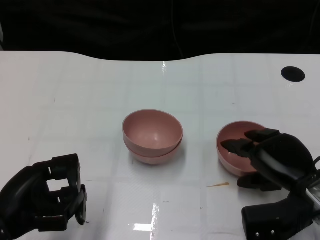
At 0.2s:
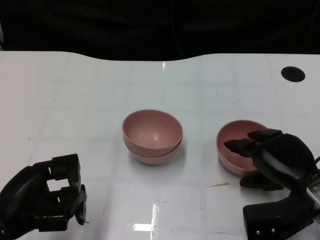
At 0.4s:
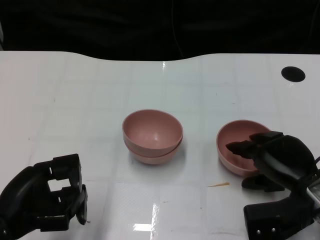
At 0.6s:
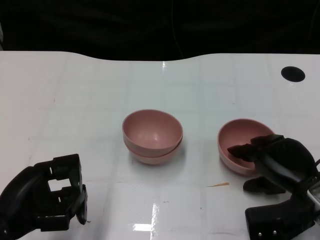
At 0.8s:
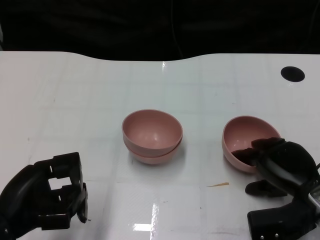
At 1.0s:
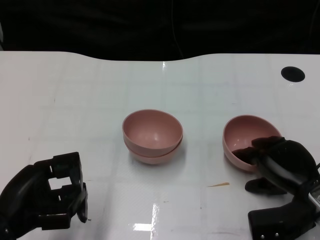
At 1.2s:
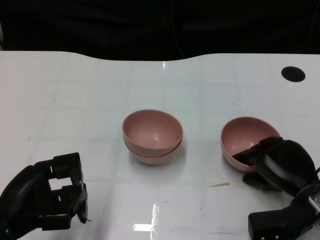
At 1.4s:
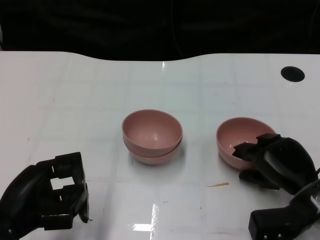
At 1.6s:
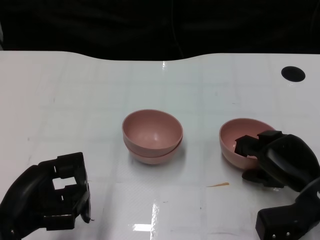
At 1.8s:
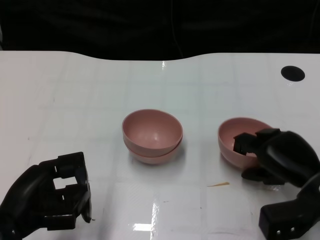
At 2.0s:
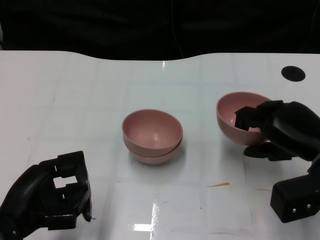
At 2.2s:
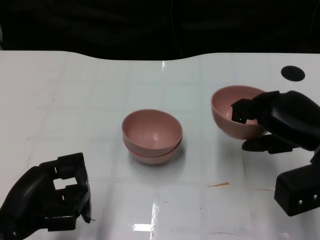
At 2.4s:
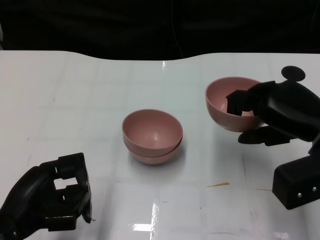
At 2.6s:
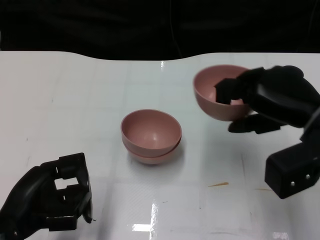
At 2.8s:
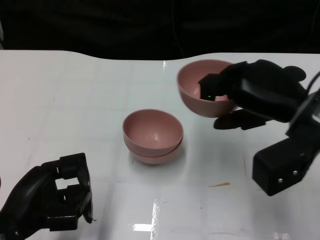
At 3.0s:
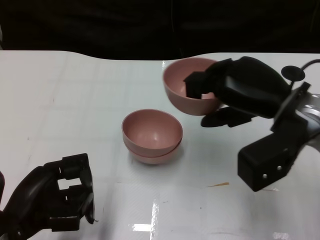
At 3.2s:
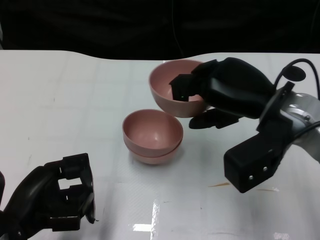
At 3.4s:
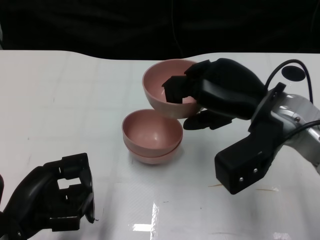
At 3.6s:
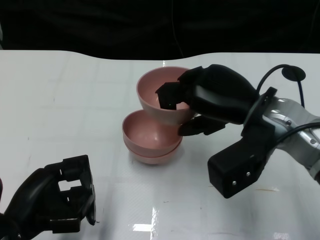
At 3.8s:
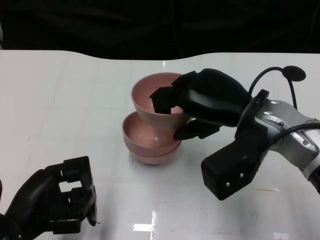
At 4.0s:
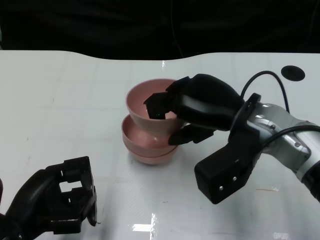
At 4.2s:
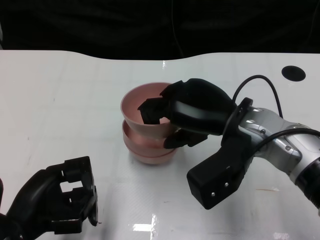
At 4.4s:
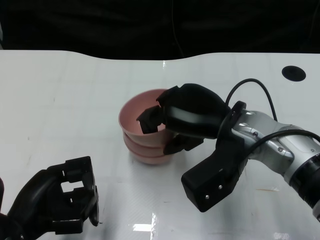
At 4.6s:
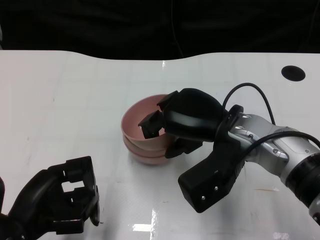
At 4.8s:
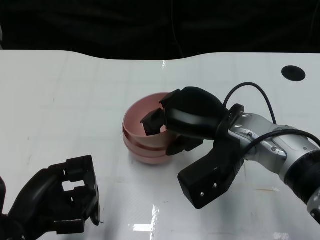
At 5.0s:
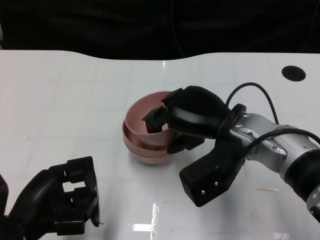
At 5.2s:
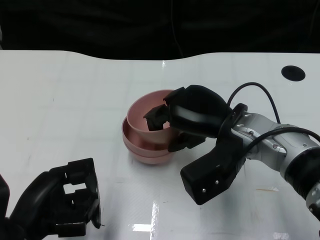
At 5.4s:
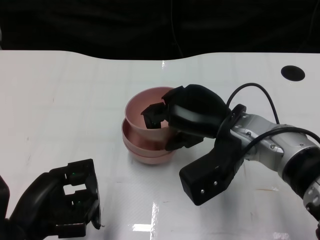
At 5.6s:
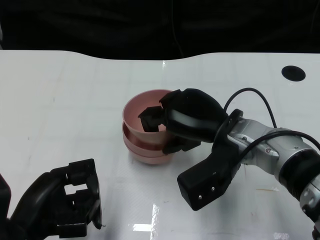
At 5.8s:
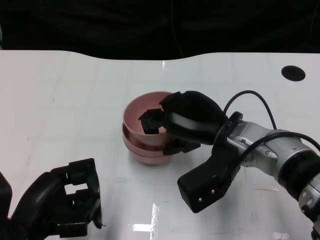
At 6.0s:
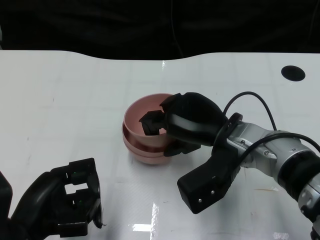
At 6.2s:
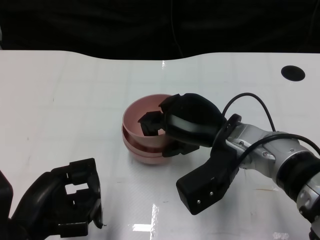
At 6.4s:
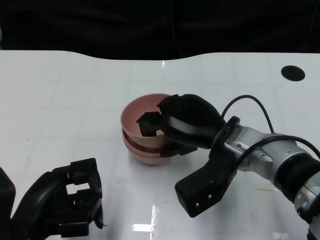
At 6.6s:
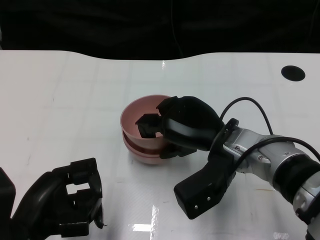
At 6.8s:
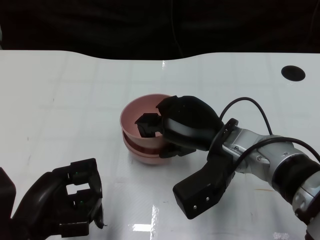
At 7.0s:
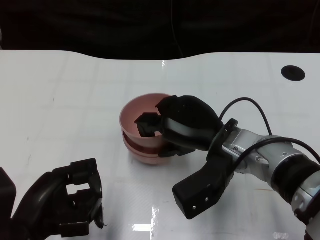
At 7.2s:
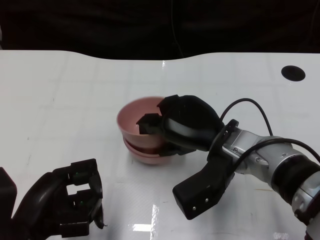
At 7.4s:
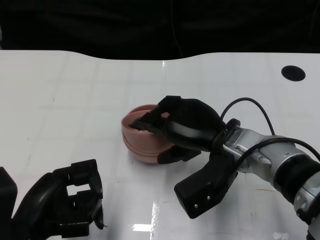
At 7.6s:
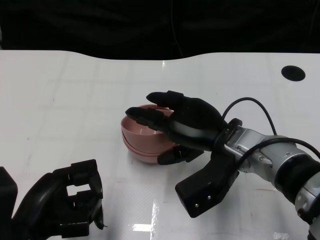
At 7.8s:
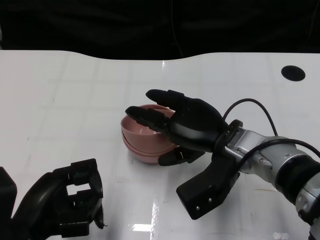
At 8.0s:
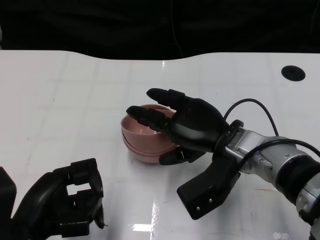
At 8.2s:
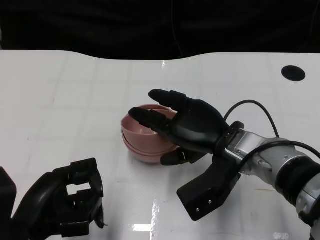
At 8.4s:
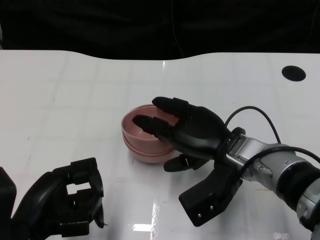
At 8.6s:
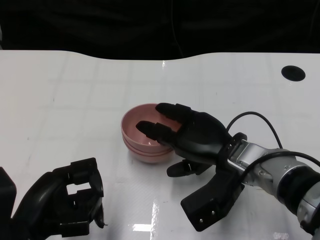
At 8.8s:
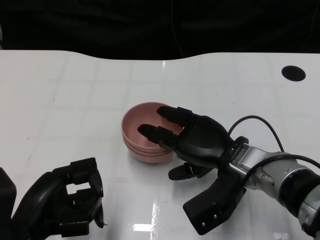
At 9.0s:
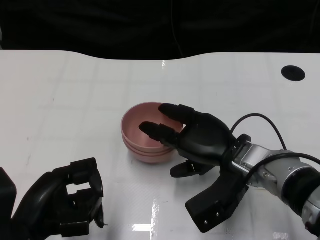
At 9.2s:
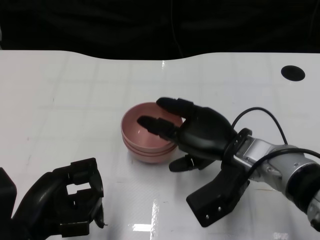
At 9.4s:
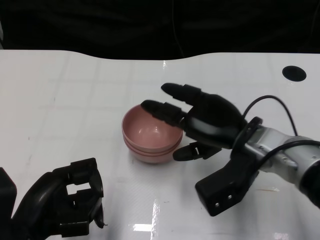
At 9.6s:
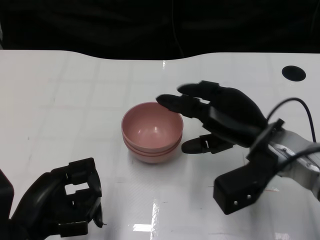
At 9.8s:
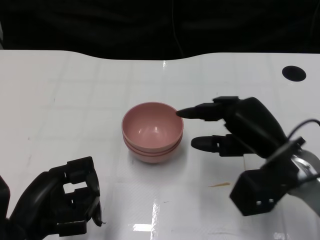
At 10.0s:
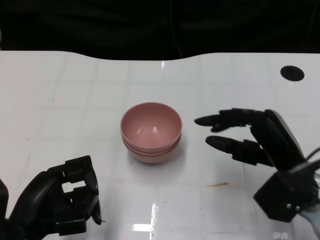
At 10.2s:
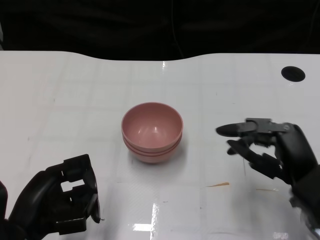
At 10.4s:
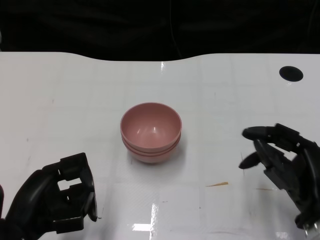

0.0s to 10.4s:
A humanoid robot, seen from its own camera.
Task of the whole recording: Pick up the bowl on one side of the table and place it on top of the middle bowl, then pick up the bowl on the other side of the table and place it on top of the middle bowls.
Step, 2.0s to 9.2s: Place the bowl on the right onto the bowl in the middle with right gripper.
0.0s to 1.4s: The hands stay close to where they were, moving slightly.
1.4s to 3.0s: The right hand shifts roughly 15 cm upward.
3.0s to 4.4s: The right hand travels to the left by roughly 5 cm.
4.4s to 7.4s: The hands make only small movements.
7.4s to 9.0s: There are only small adjustments of the hands.
9.0s to 10.4s: The right hand moves to the right and backward, approximately 15 cm.

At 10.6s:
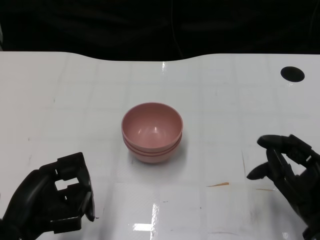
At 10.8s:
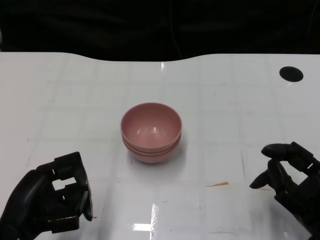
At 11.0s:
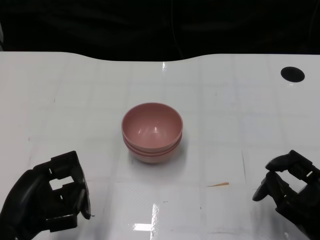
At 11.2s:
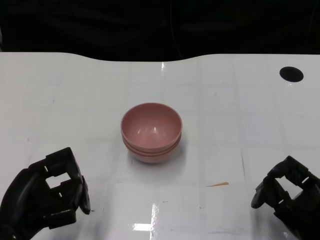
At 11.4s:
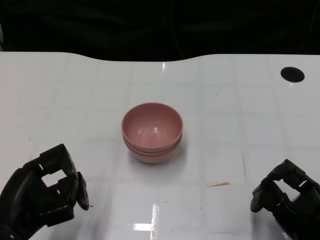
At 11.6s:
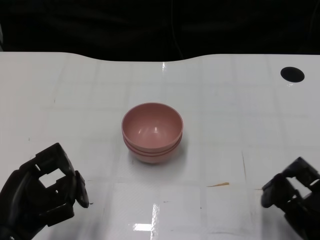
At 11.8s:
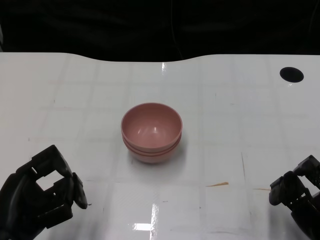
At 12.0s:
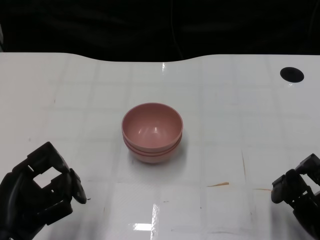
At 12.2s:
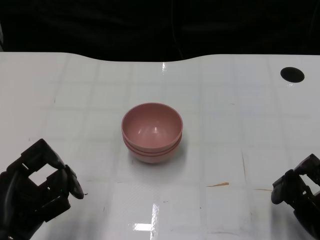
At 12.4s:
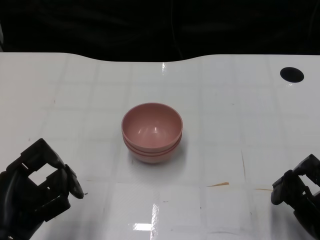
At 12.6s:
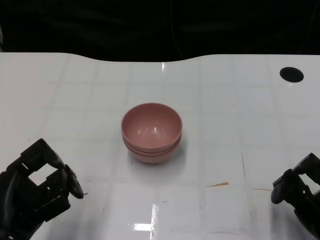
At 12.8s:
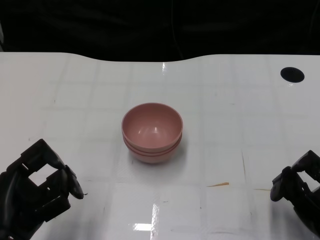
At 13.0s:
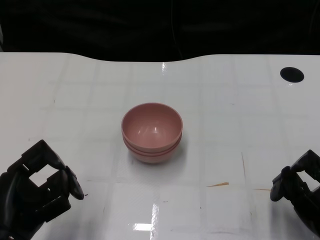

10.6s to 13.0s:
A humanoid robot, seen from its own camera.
Task of the whole recording: Pick up the bowl on one side of the table and place it on top of the middle bowl, then pick up the bowl on the other side of the table and place it on top of the middle bowls.
11.8s to 13.0s: There are only small adjustments of the hands.

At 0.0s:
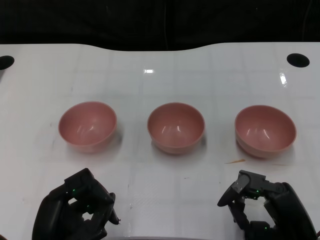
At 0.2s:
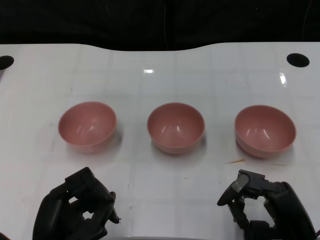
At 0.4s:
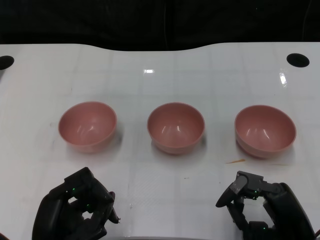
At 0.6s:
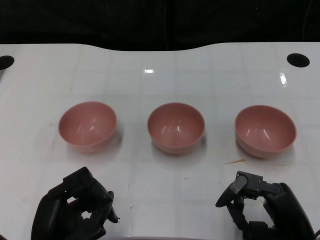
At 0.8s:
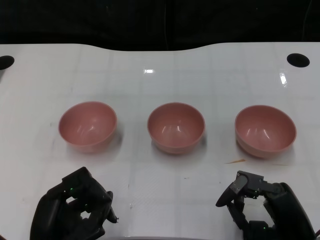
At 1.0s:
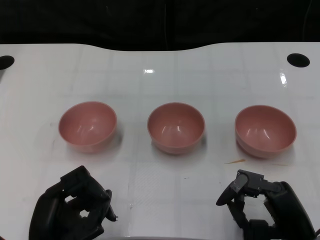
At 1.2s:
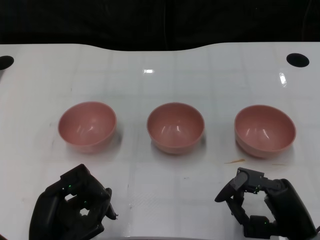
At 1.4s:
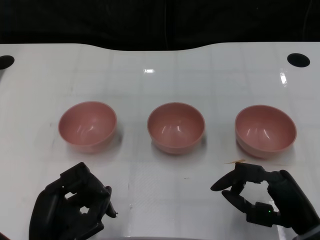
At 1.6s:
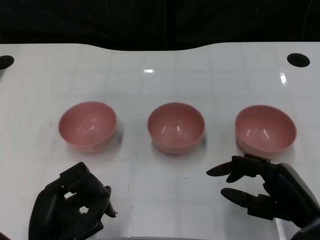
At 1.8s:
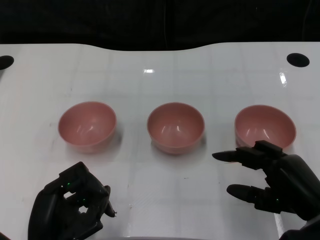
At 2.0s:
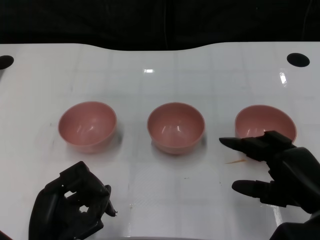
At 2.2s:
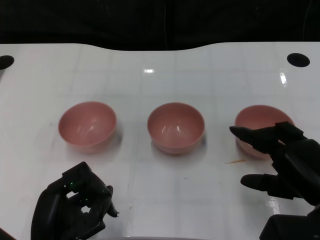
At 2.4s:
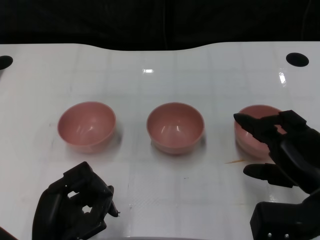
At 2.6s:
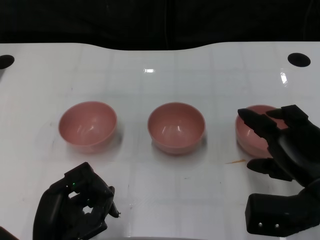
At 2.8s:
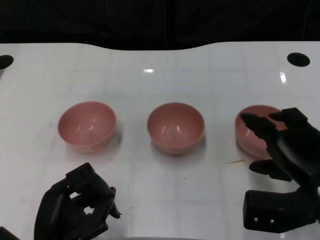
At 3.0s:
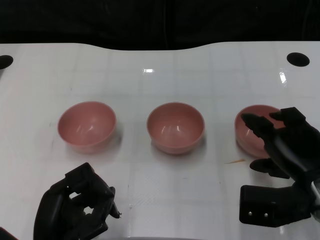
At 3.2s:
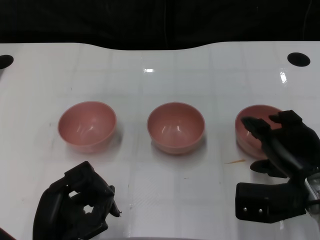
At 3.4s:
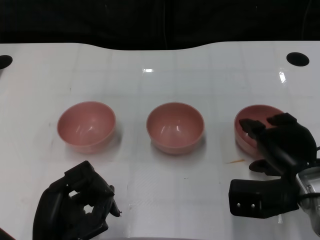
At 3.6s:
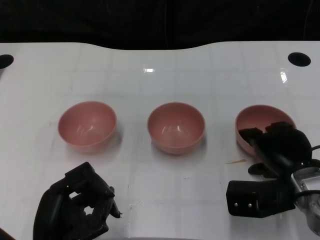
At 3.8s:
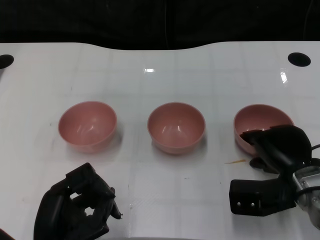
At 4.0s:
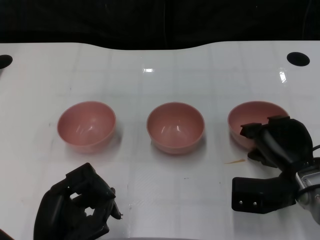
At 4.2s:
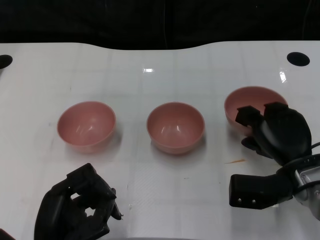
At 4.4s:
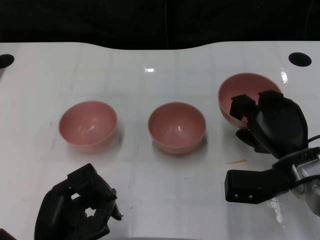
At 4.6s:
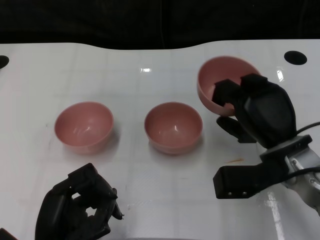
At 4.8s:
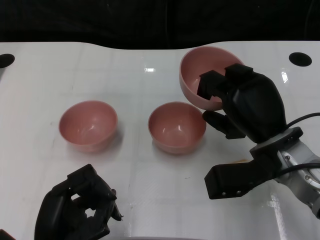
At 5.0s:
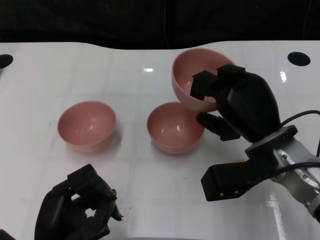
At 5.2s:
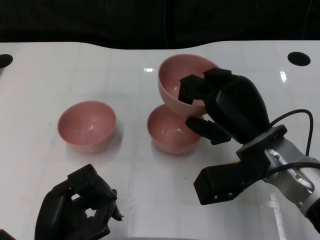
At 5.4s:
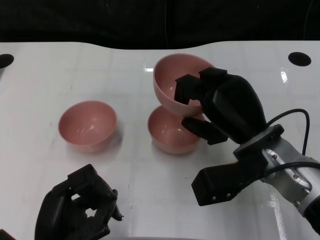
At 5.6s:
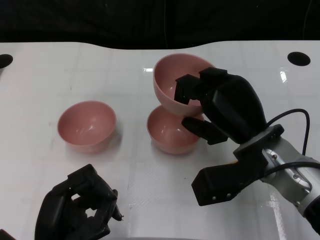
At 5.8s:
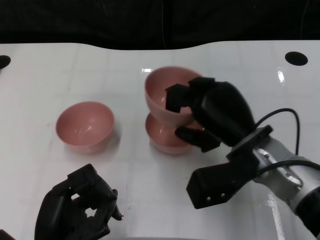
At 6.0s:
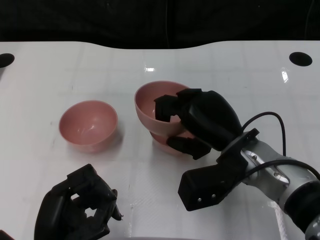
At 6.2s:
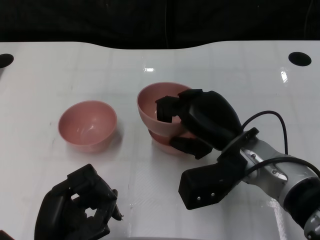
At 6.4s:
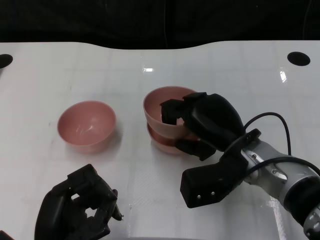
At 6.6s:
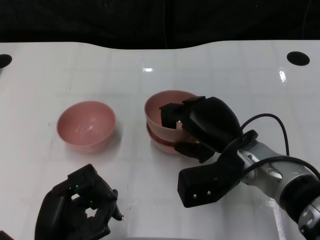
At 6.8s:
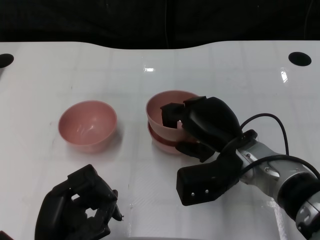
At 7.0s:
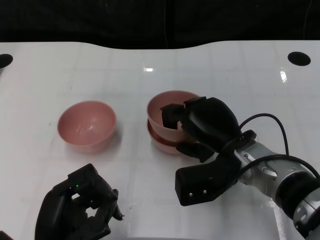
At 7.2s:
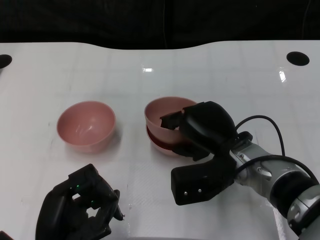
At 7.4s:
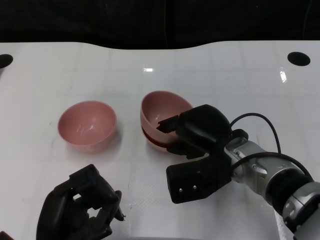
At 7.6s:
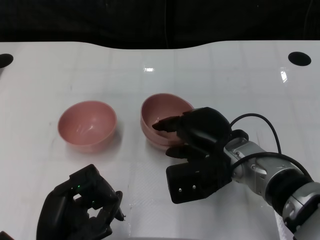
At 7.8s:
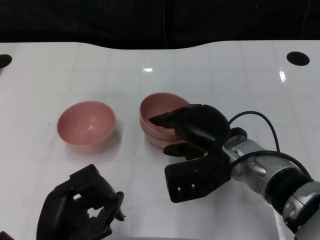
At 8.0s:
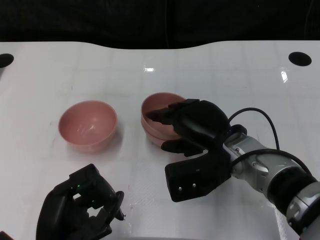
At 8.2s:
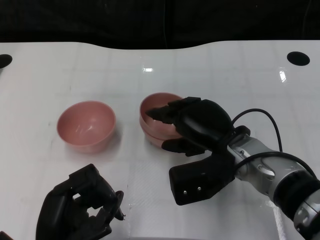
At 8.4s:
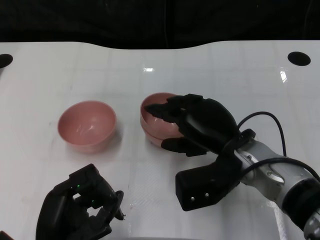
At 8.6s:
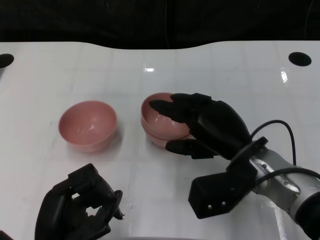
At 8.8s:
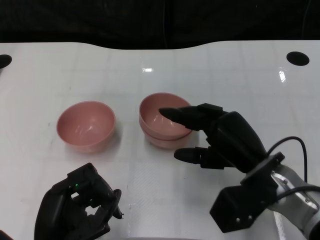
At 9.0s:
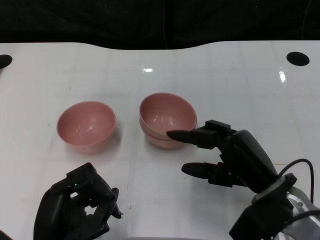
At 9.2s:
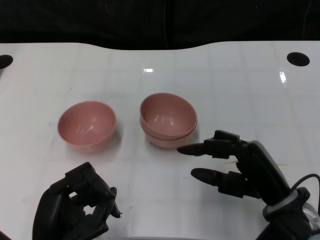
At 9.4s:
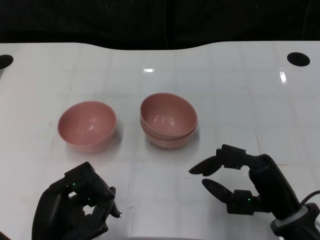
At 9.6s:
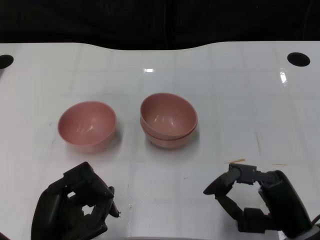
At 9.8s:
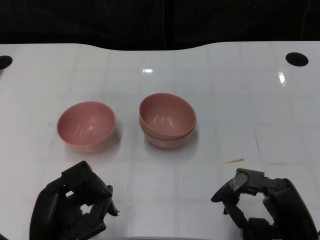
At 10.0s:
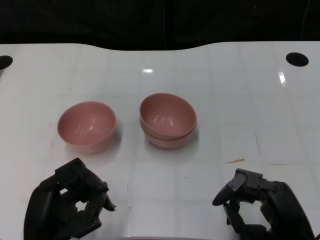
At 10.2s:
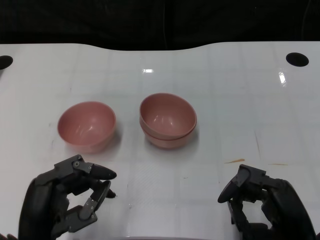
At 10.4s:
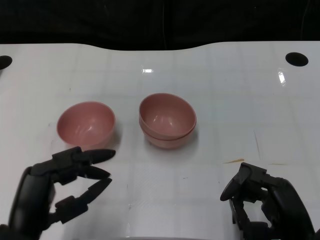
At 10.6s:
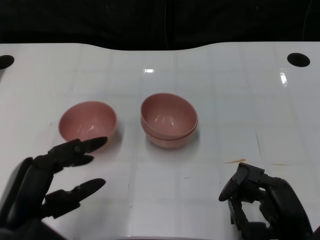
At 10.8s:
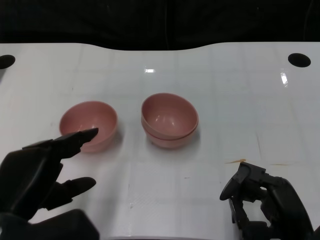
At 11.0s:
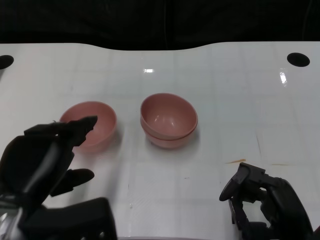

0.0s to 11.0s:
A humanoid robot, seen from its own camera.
Task of the whole recording: Pick up the bowl on one side of the table and place it on top of the middle bowl, then pick up the bowl on the other side of the table and place it on top of the middle bowls.
Step, 1.2s to 4.0s: Grasp the bowl on the right with the right gripper.
Step, 4.2s to 8.8s: Place the bowl on the right onto the bowl in the middle with right gripper.
1.6s to 3.2s: The right hand travels forward by about 5 cm.
3.2s to 4.8s: The right hand heads to the left, covering roughly 5 cm.
7.8s to 9.4s: The right hand heads backward and to the right, covering some 15 cm.
9.4s to 11.0s: The left hand is displaced upward by some 10 cm.
